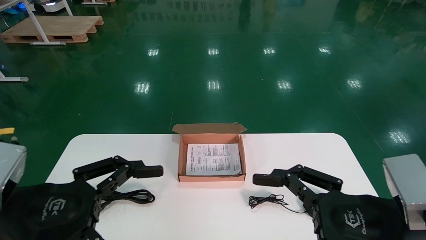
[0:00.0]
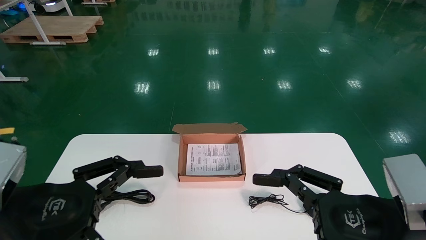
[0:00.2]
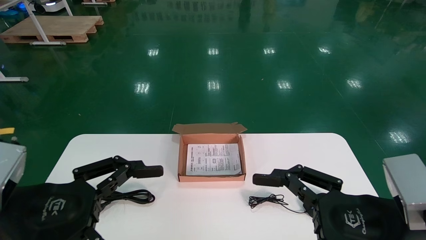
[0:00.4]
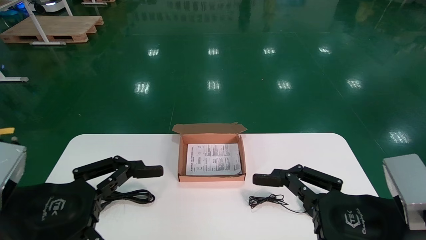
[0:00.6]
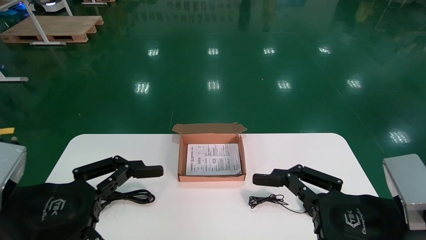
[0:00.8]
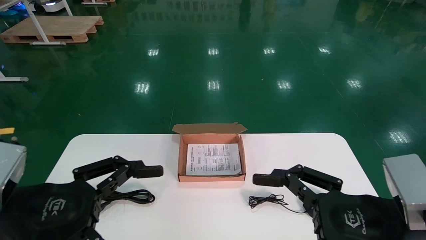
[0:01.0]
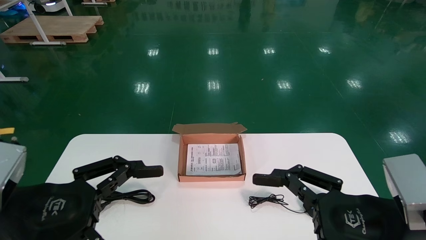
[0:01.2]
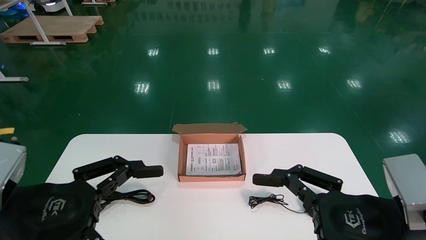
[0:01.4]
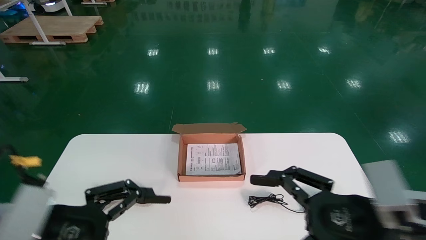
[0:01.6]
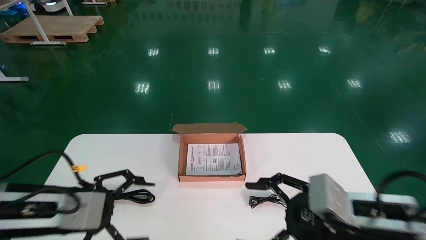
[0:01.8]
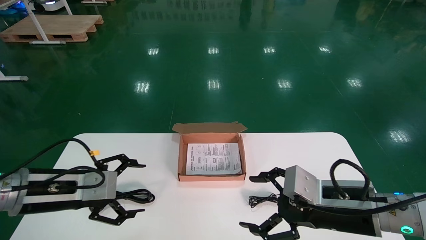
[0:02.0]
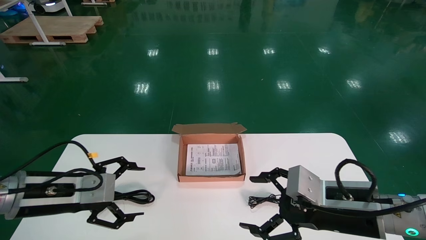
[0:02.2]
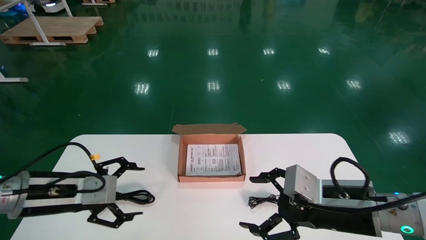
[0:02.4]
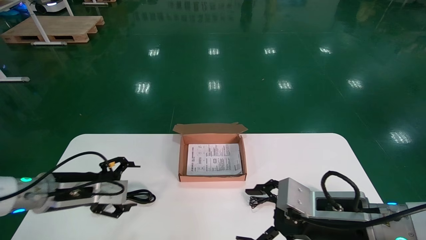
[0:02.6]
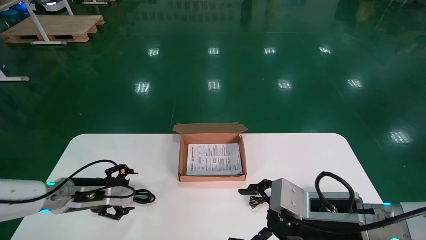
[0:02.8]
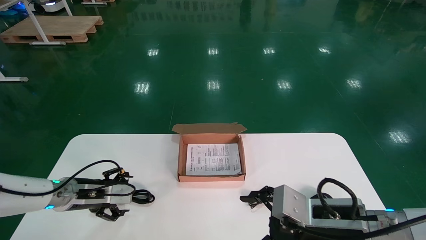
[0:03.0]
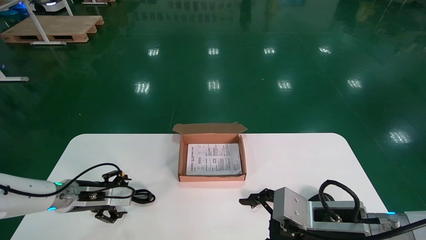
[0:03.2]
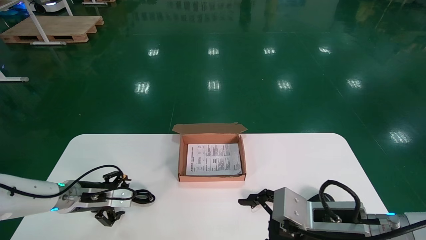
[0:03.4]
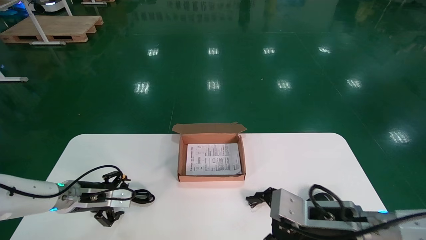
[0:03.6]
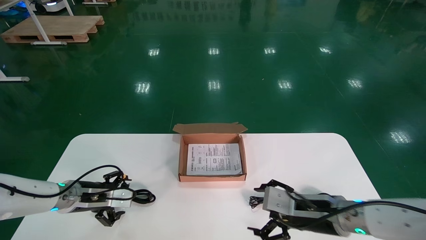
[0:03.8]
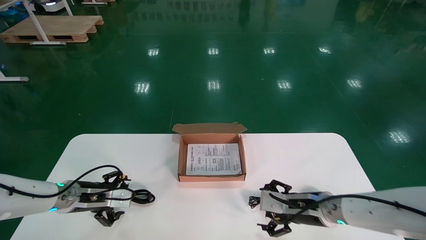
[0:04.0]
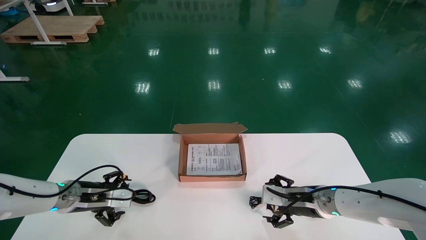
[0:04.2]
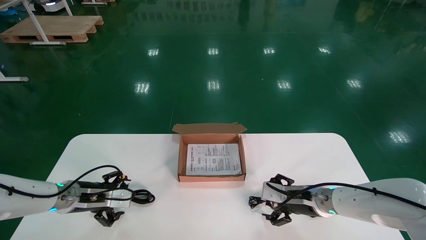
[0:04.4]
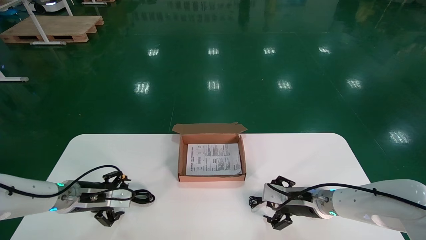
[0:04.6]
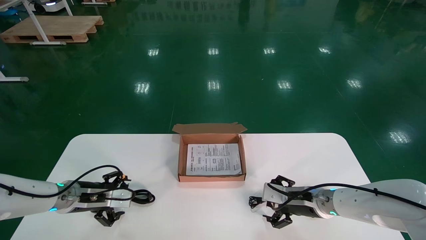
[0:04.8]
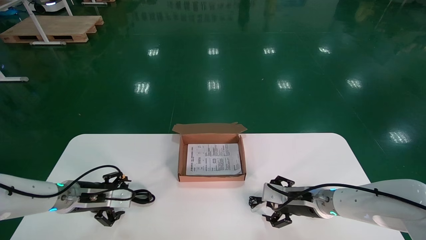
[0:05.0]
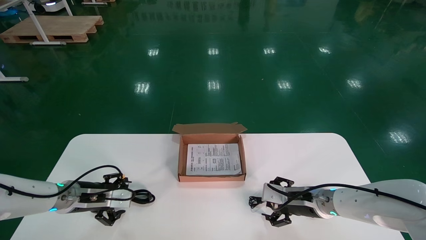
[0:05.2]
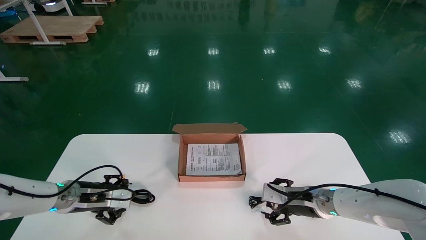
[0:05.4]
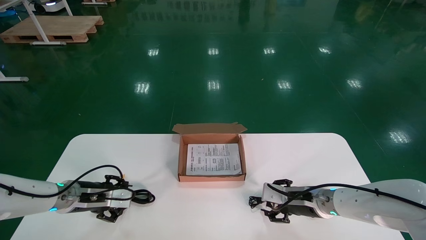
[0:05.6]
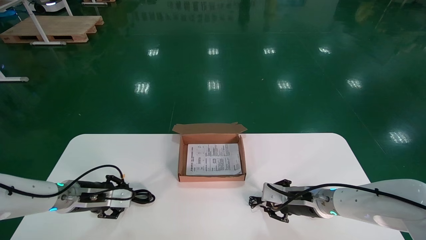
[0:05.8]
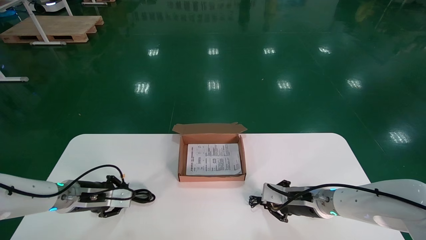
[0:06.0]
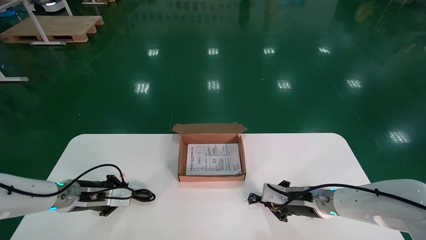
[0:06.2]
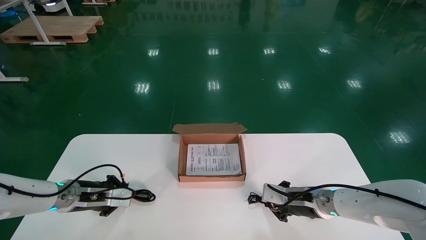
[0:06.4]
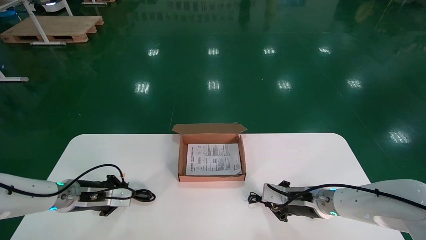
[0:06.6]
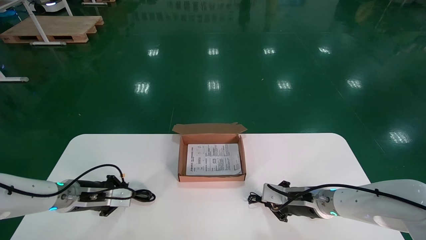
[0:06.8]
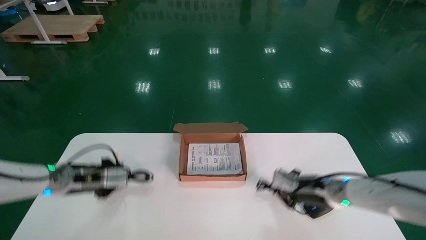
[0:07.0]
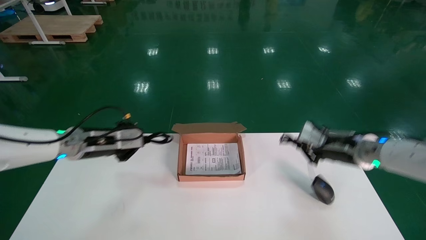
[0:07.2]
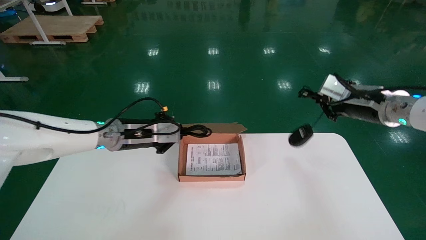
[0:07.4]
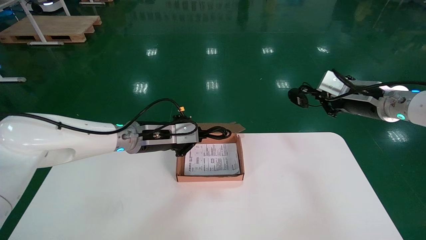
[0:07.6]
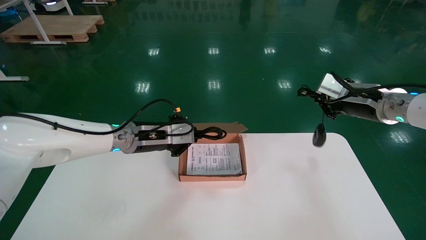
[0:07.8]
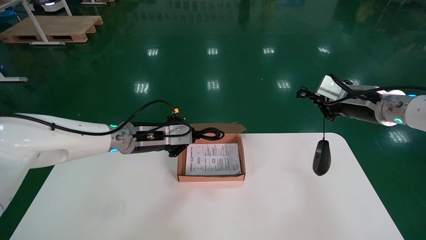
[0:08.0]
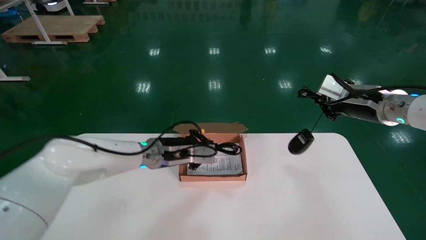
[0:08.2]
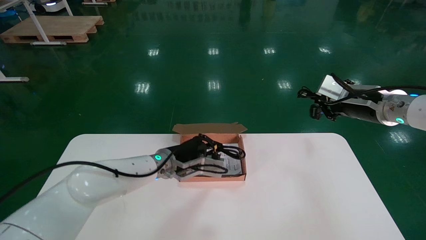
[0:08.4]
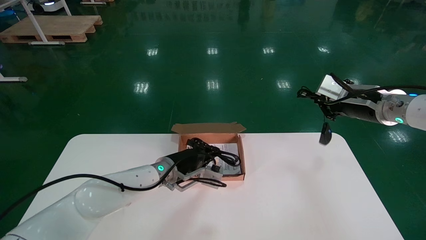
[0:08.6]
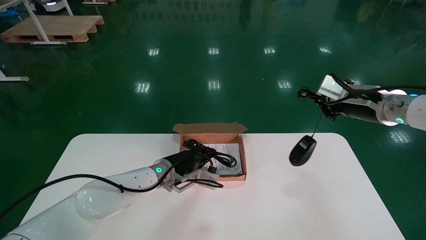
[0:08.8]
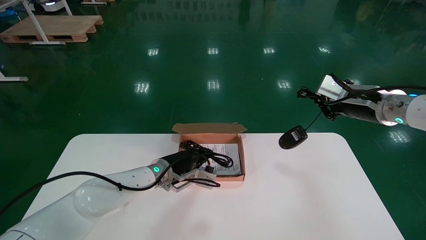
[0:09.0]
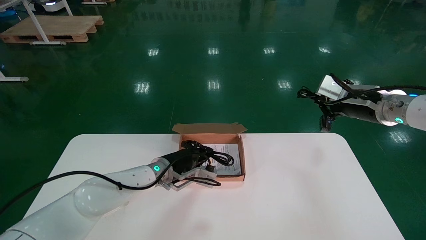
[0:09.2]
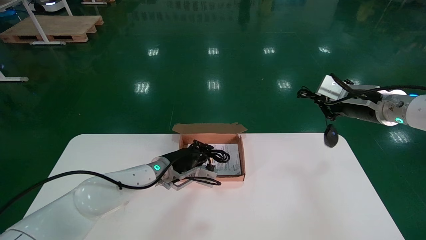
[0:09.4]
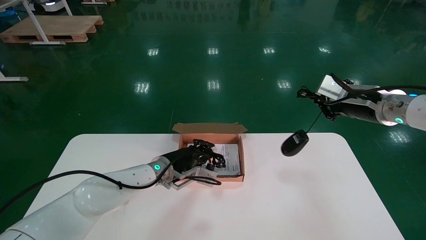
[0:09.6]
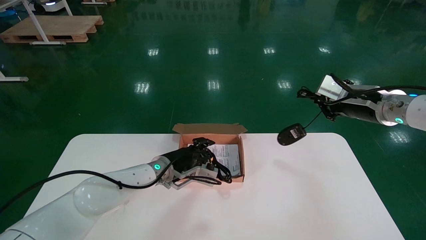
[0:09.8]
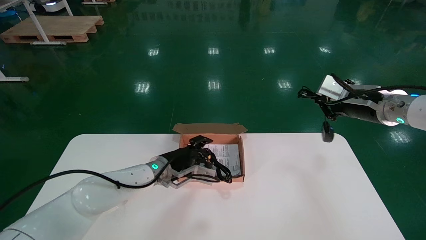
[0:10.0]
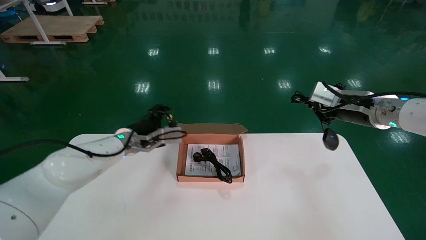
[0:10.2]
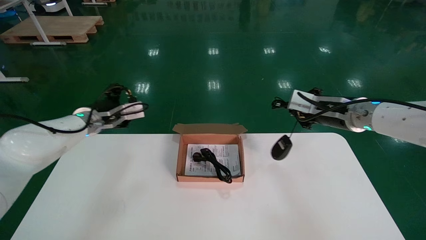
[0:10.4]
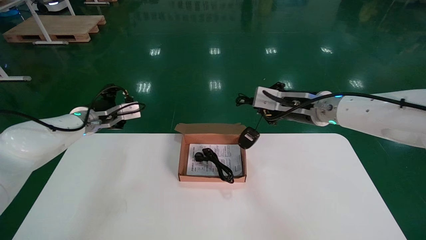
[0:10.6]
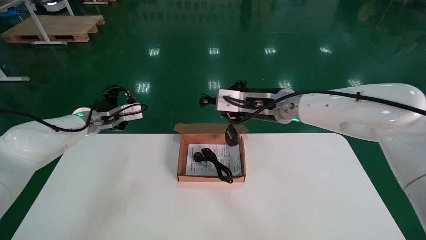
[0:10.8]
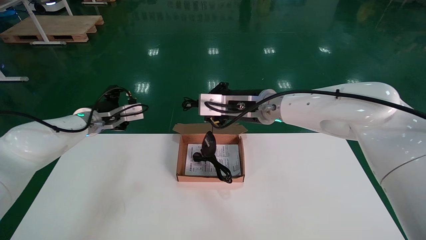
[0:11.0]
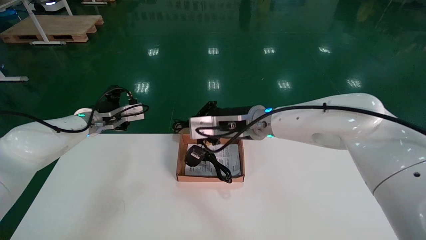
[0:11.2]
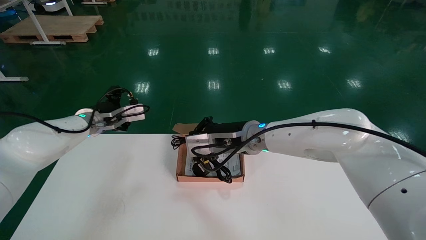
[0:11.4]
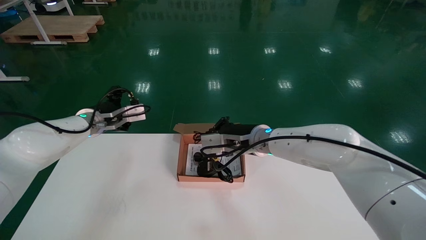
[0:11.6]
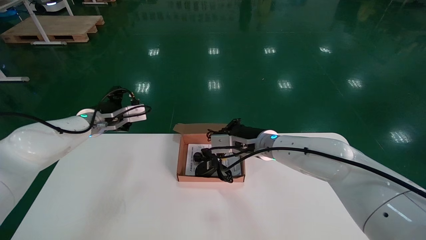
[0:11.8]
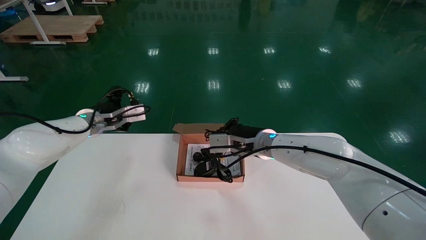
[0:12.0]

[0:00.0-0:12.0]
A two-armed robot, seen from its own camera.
Step, 0:01.8 to 0:06.2: Simultaneously pick up the mouse and power cord from the accessory packaging area.
0:01.6 to 0:03.0: The left gripper moves forward and downward, roughly 20 cm. Meanwhile the right gripper heads forward, covering about 5 cm.
0:03.0 to 0:04.4: The right gripper heads forward, covering approximately 15 cm.
0:04.4 to 0:06.0: The left gripper closes its fingers. Meanwhile the right gripper closes.
0:06.0 to 0:07.6: The right gripper shifts approximately 25 cm upward and to the right. The left gripper moves to the right and upward, approximately 20 cm.
0:07.6 to 0:09.0: The left gripper is displaced downward and to the right by roughly 10 cm.
0:09.0 to 0:10.4: The right gripper is displaced to the left by roughly 10 cm. Meanwhile the left gripper goes approximately 20 cm to the left and upward, and opens up.
0:10.4 to 0:12.0: The right gripper travels to the left and downward by roughly 20 cm.

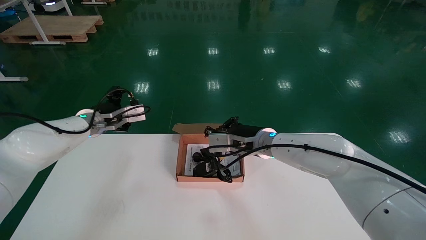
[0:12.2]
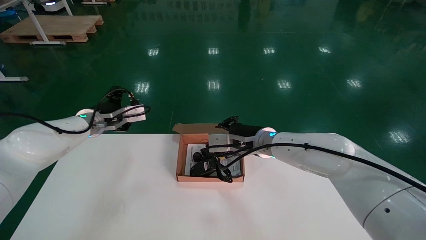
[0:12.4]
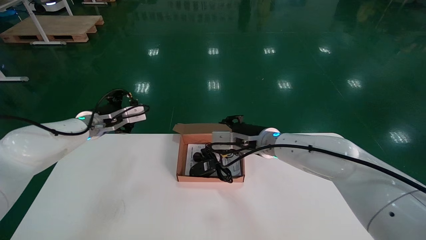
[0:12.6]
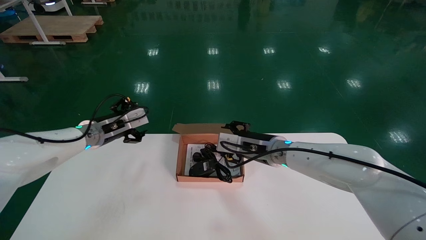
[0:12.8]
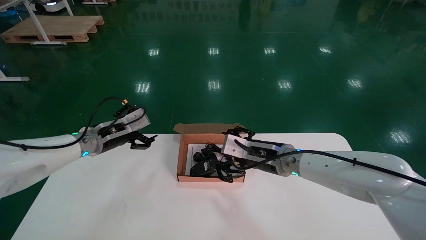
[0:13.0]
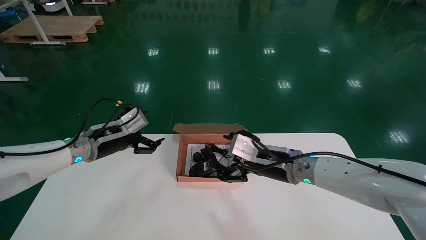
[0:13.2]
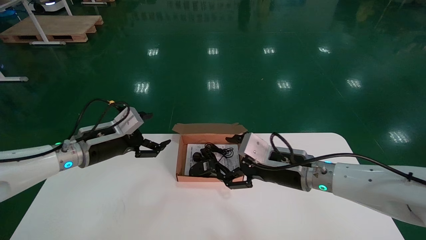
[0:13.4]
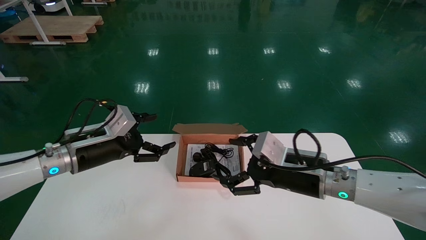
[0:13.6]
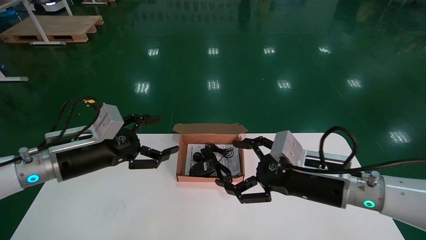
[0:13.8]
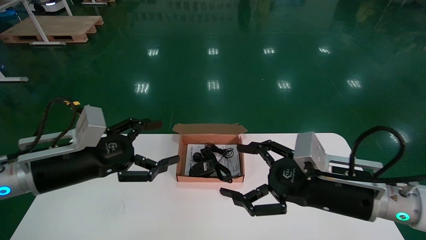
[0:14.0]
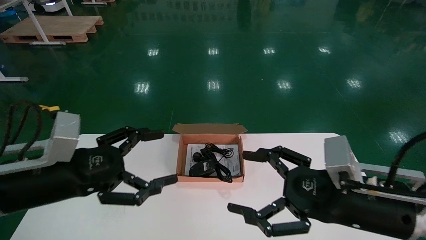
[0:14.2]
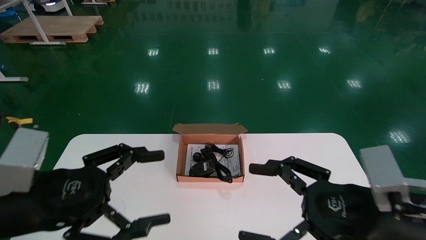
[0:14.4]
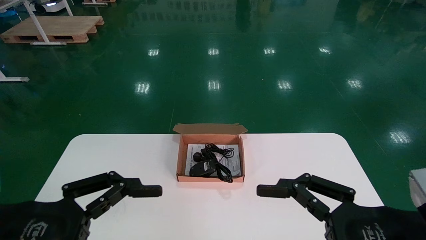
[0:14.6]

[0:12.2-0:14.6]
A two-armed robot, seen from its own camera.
0:12.2 to 0:13.4: The right gripper shifts about 10 cm backward and to the right, and opens its fingers. Meanwhile the left gripper shifts about 10 cm backward.
0:13.4 to 0:14.6: The right gripper moves backward and to the right, roughly 20 cm. Meanwhile the left gripper goes some 25 cm backward.
